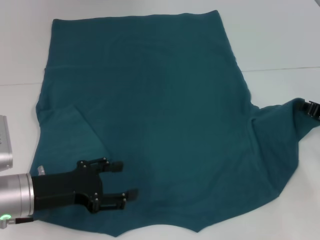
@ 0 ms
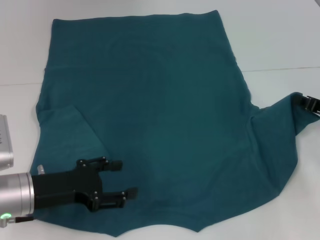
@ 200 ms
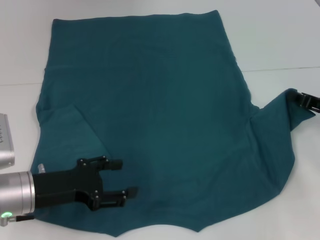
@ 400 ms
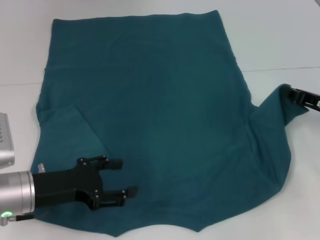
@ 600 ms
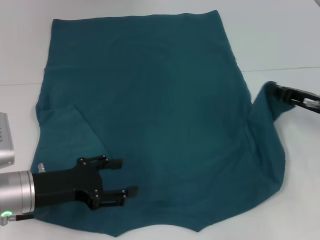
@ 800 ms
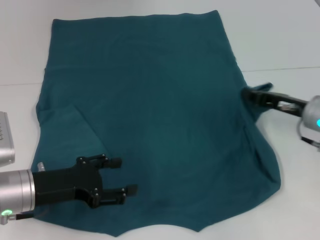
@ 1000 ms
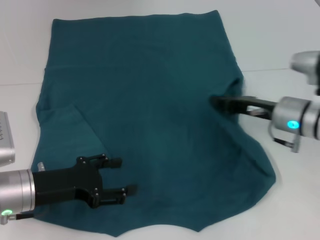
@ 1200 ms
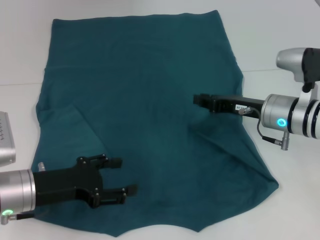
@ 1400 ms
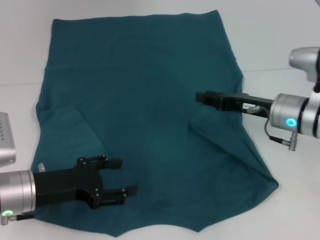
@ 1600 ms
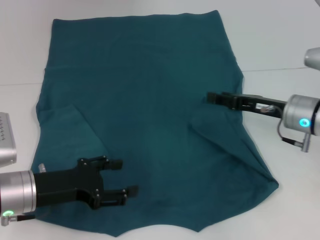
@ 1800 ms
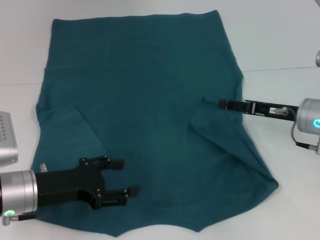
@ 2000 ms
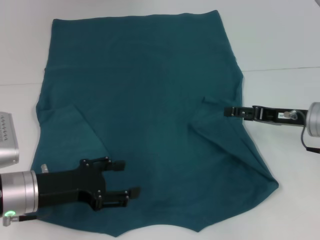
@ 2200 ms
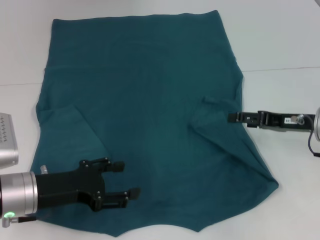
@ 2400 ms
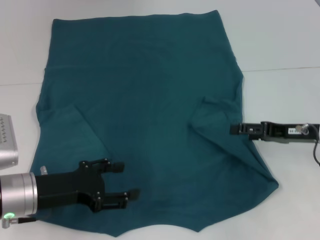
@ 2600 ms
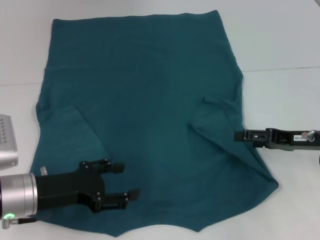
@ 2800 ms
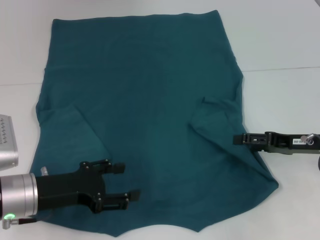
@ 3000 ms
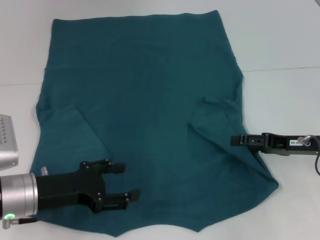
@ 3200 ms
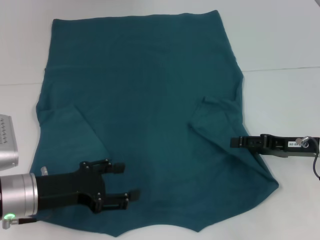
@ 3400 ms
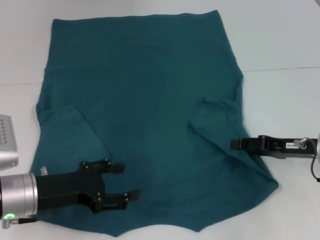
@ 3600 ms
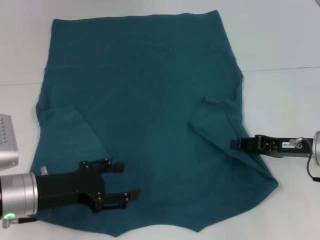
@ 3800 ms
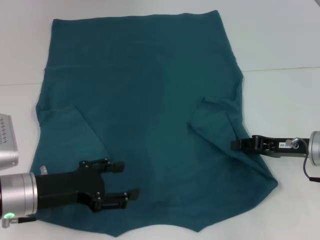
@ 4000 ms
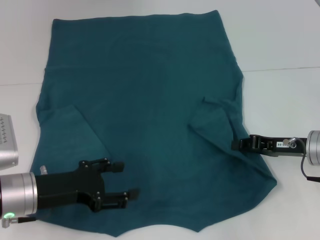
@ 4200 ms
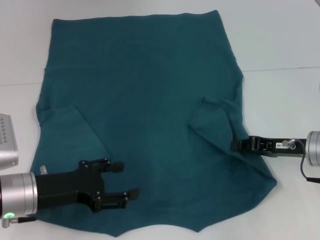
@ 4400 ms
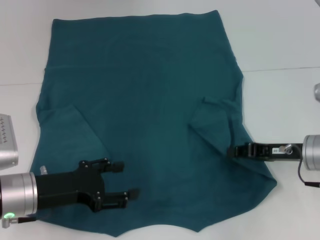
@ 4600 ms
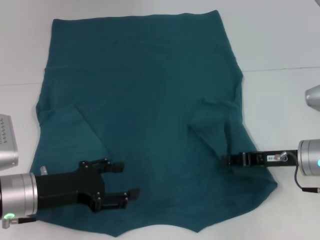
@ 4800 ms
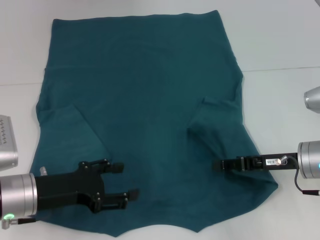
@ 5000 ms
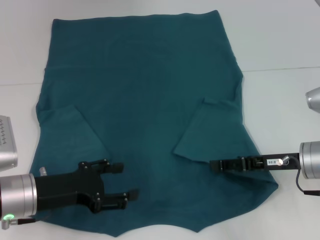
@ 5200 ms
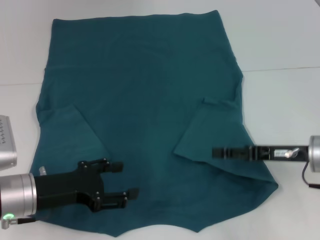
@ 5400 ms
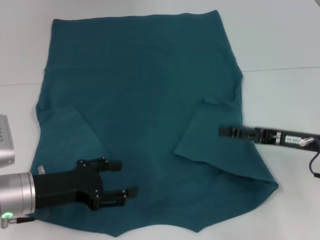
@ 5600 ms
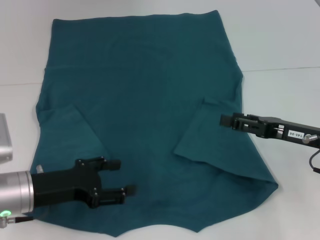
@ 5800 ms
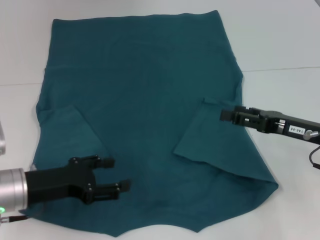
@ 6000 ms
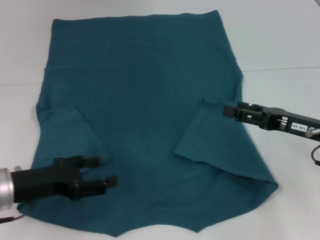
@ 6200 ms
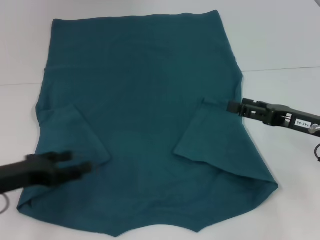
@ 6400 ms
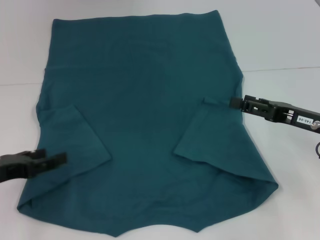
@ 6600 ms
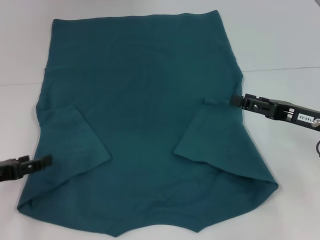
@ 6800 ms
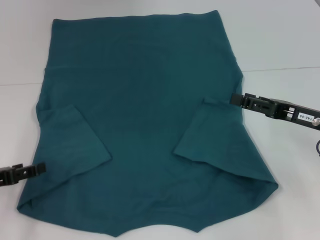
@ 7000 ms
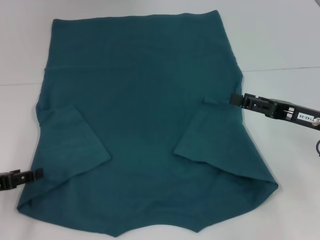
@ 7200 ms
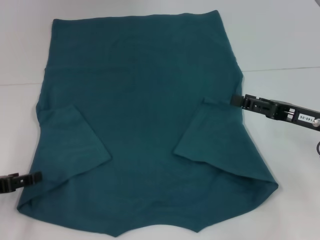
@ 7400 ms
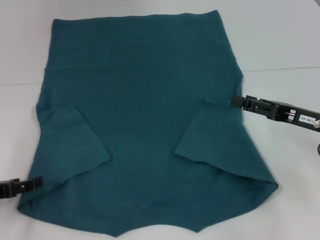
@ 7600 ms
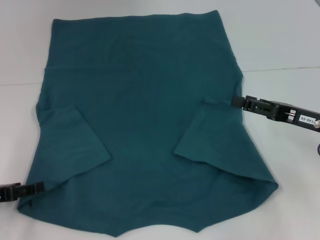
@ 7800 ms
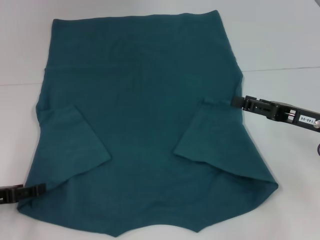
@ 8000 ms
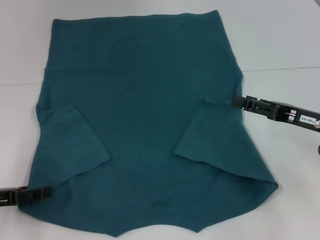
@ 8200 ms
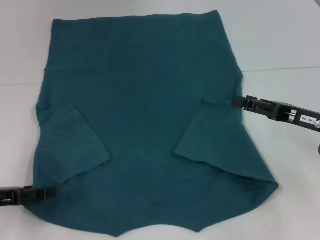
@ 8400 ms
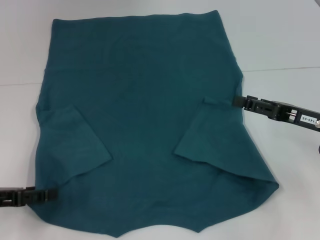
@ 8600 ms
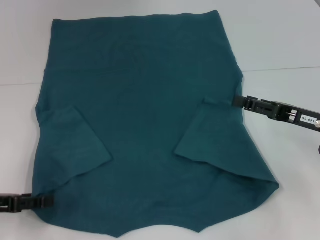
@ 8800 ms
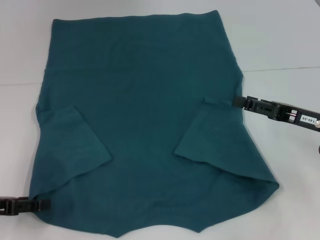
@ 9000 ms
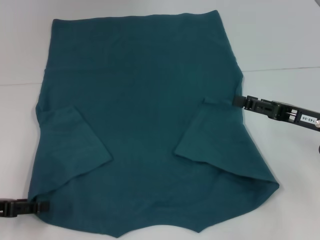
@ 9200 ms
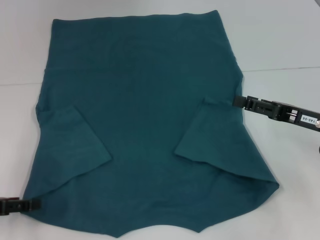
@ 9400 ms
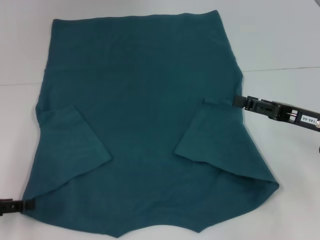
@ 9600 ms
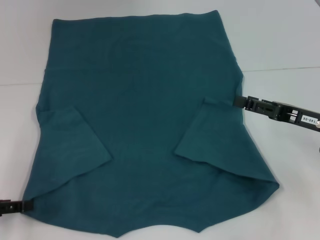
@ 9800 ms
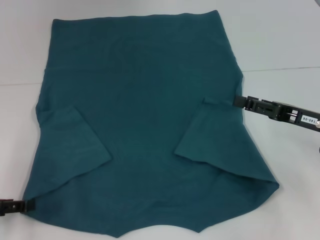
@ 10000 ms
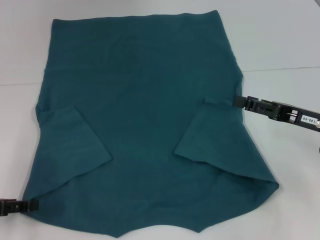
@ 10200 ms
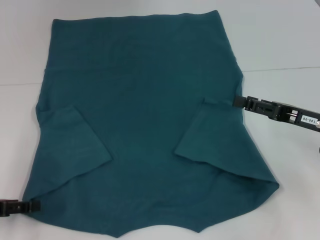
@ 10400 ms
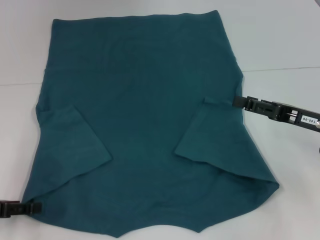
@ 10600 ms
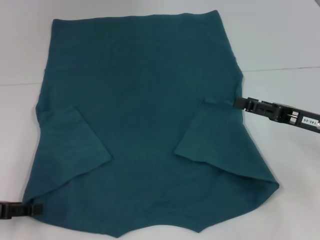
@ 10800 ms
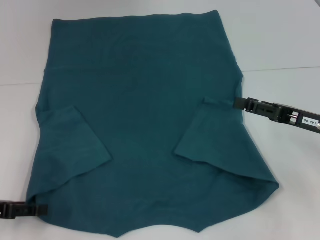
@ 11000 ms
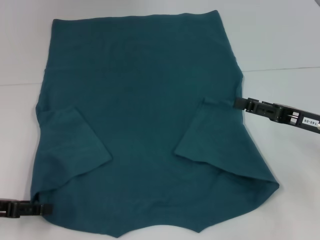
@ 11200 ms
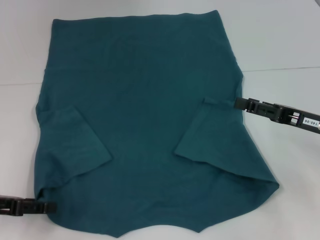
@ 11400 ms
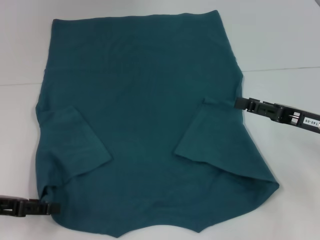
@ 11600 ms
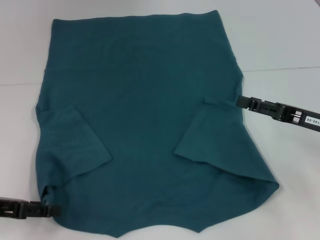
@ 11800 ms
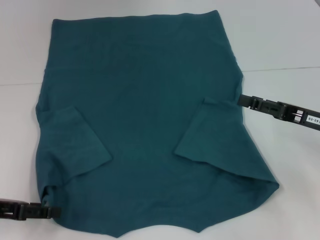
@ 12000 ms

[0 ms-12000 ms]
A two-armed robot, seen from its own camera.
Step, 0 ms to 5200 ms: Fold the bottom right sleeve to the right.
0 ms to 1600 ms: The right gripper moves to the left, about 10 cm.
1600 ms to 3000 ms: The right gripper shifts roughly 5 cm to the right, and opens up.
3000 ms to 4400 ms: The right gripper closes up.
4400 ms to 6000 ms: The right gripper opens.
6000 ms to 7600 ms: The left gripper shifts some 10 cm to the left.
7600 ms to 9000 ms: The grippers move only a little.
10400 ms to 12000 ms: The grippers make only small movements.

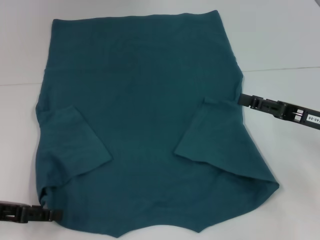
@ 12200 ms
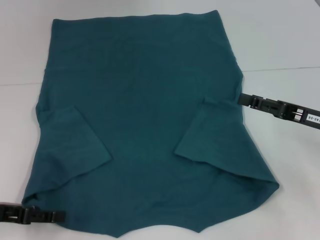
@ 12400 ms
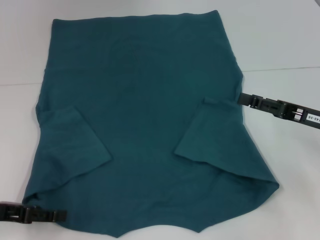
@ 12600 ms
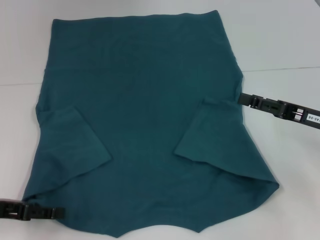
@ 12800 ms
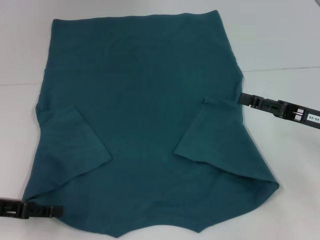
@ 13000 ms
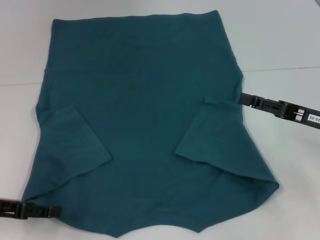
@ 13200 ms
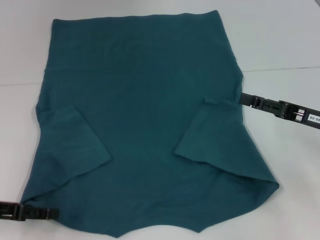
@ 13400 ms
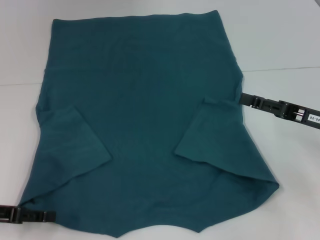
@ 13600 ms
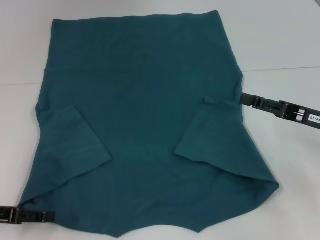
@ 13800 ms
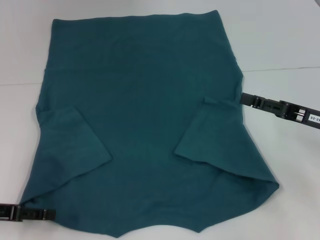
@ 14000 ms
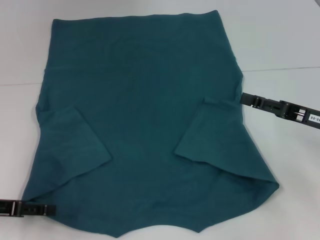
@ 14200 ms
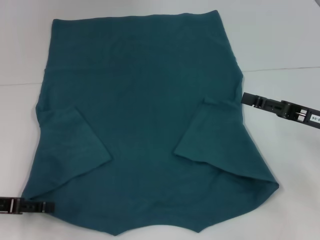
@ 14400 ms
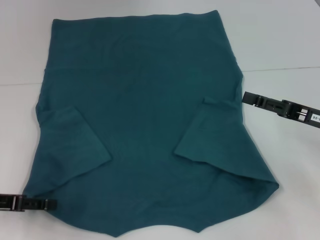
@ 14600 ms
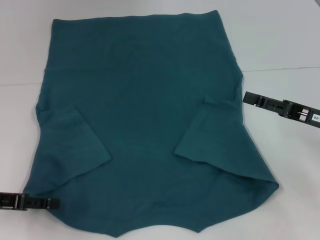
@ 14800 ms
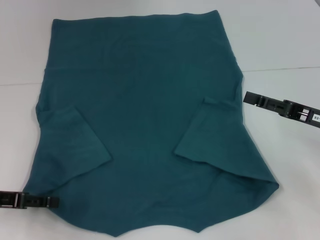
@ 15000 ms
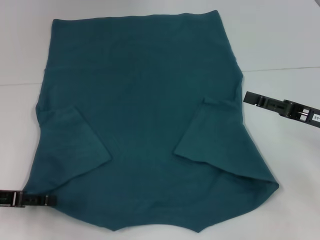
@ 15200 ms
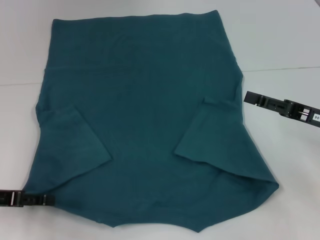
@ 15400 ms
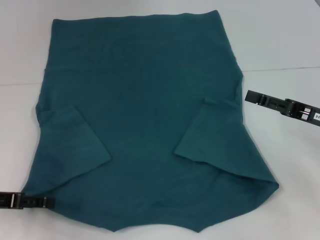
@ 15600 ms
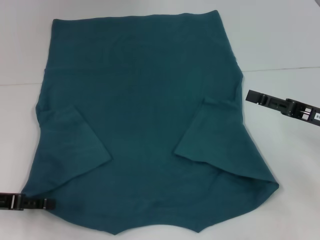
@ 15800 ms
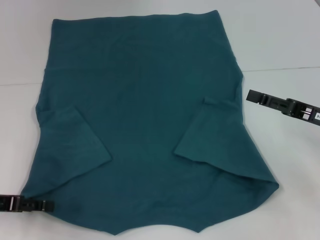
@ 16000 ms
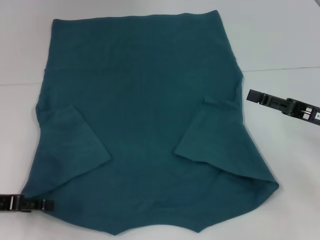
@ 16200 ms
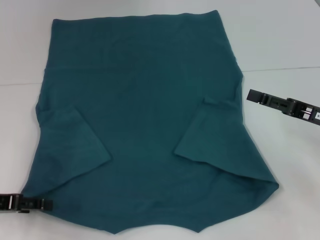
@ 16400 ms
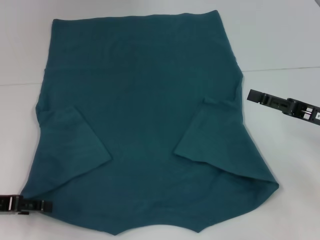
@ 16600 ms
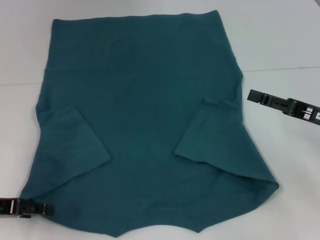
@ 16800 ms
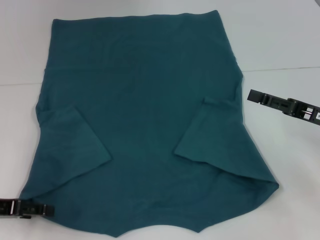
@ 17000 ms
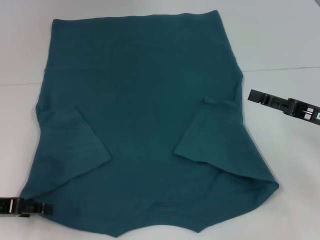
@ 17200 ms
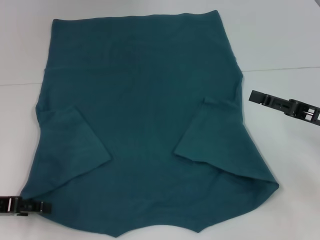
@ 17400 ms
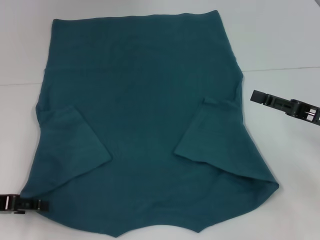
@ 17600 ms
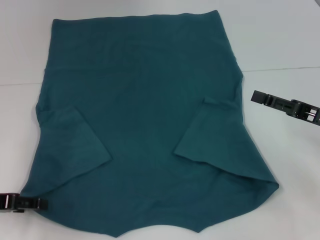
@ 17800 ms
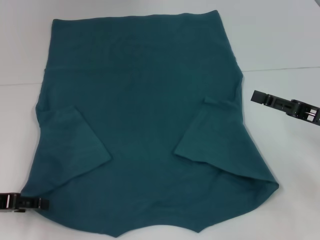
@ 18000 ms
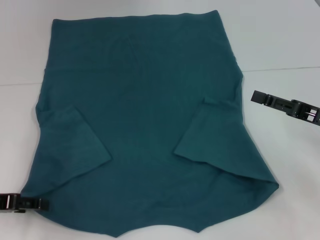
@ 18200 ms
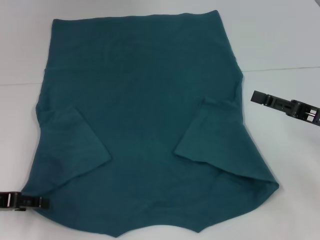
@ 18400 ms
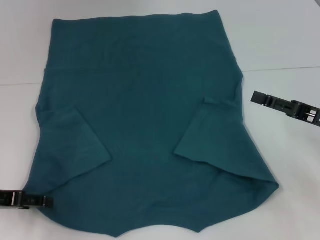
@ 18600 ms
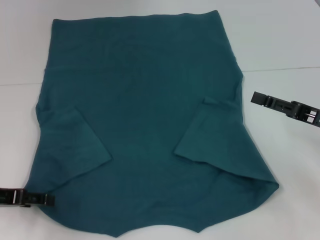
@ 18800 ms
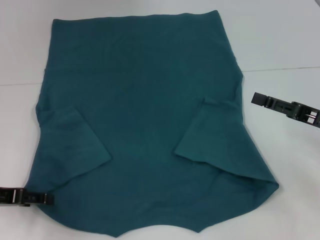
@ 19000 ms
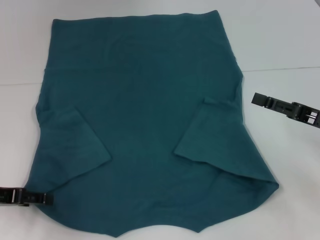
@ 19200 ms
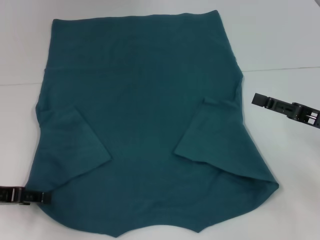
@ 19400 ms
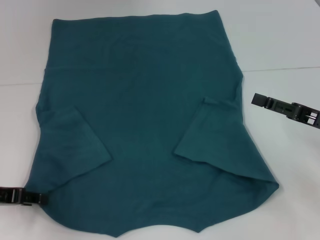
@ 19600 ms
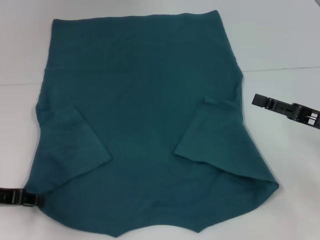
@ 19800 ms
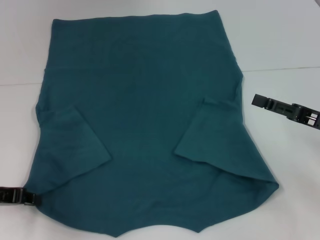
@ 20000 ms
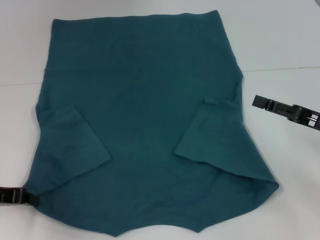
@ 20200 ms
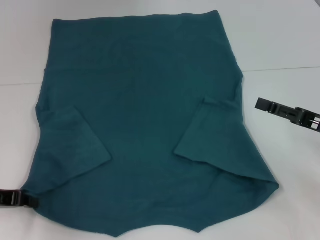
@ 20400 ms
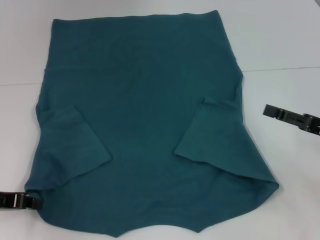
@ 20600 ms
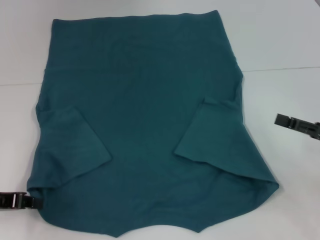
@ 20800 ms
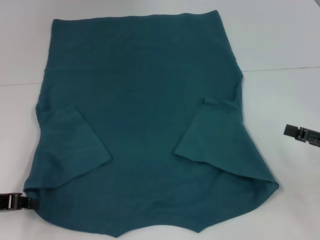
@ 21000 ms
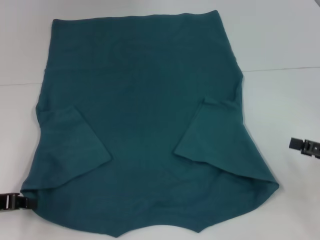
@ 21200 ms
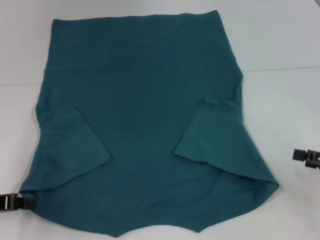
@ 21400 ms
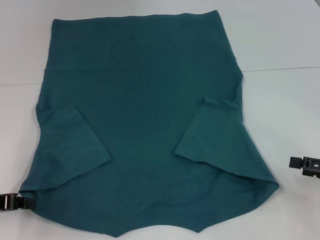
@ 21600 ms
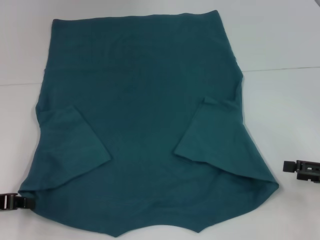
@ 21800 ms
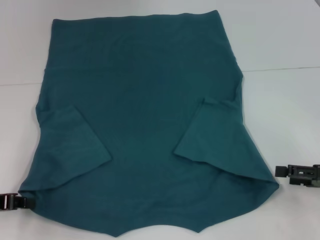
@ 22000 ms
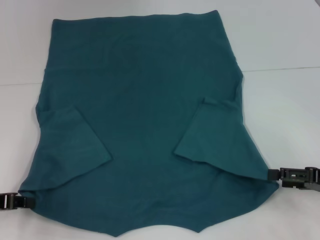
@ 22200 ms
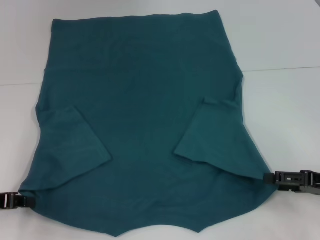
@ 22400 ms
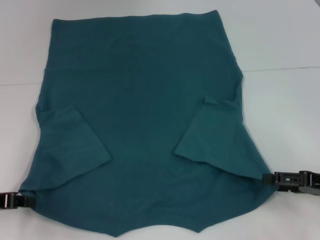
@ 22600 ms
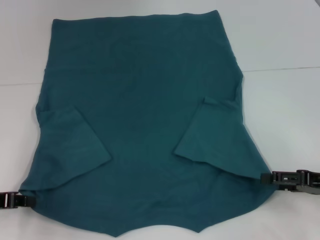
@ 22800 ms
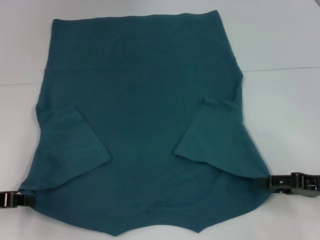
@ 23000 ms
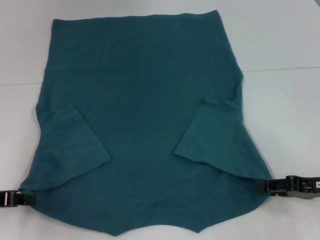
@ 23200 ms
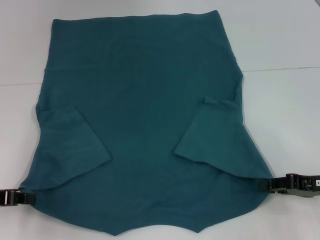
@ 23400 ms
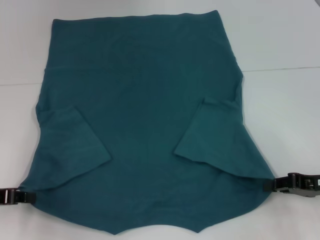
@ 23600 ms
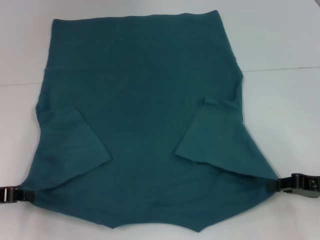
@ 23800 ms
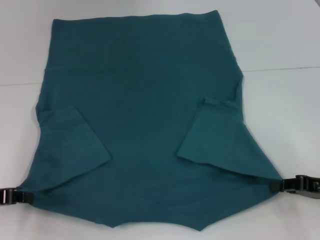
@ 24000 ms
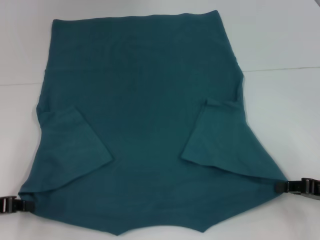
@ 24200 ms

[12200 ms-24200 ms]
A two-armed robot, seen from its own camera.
Step, 12200 ms to 20200 ms: Grab the bottom left corner with your left hand.
Step, 20400 ms to 24200 ms: Grab the bottom right corner with your right hand.
12200 ms to 16600 ms: There are only small adjustments of the grippers.
16600 ms to 18200 ms: Both grippers stay put.
18200 ms to 19800 ms: The left gripper closes.
19800 ms to 21200 ms: The right gripper travels to the right by about 5 cm, while the left gripper closes up.
21200 ms to 22600 ms: There are only small adjustments of the grippers.
22600 ms to 24200 ms: The right gripper closes up.
